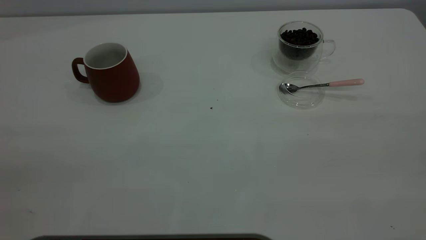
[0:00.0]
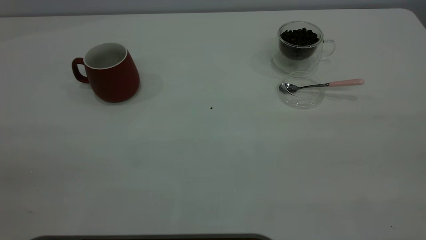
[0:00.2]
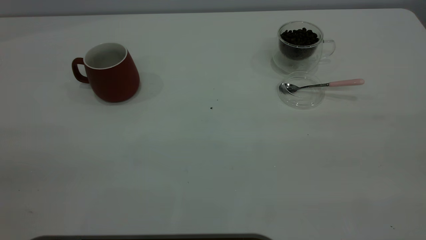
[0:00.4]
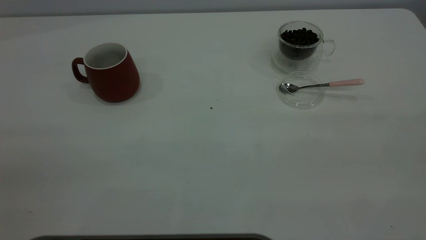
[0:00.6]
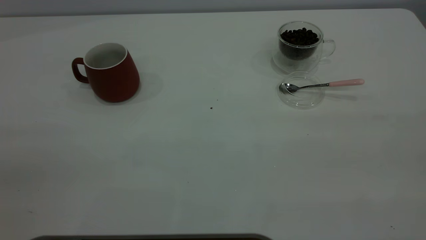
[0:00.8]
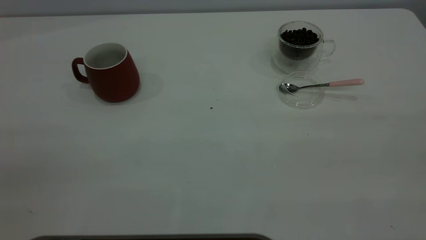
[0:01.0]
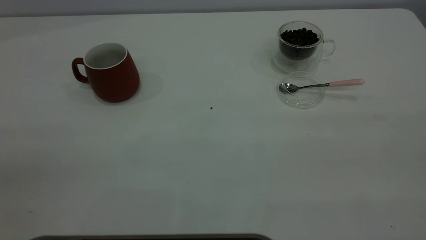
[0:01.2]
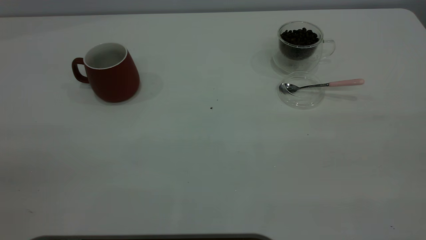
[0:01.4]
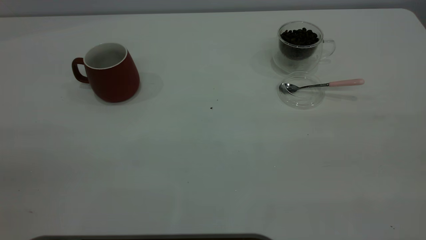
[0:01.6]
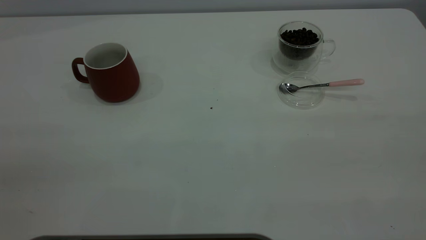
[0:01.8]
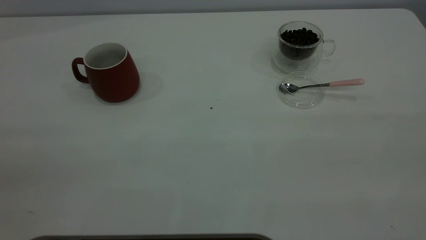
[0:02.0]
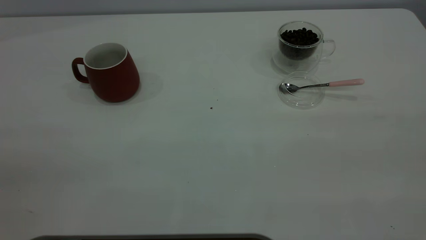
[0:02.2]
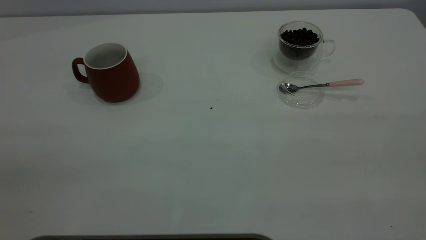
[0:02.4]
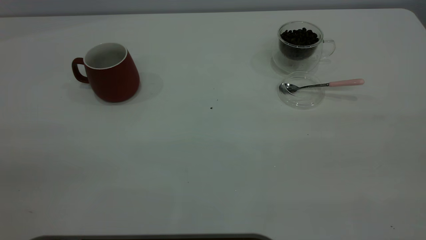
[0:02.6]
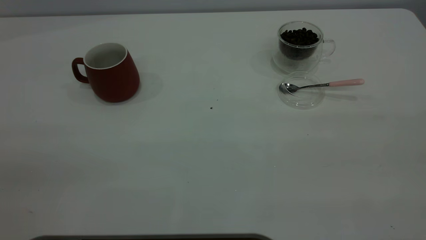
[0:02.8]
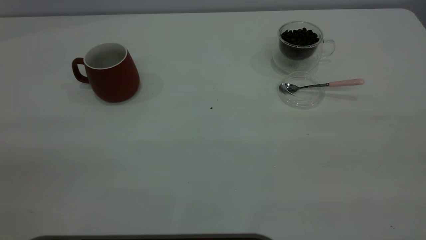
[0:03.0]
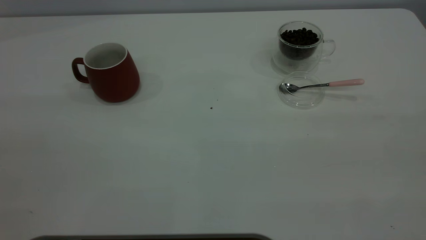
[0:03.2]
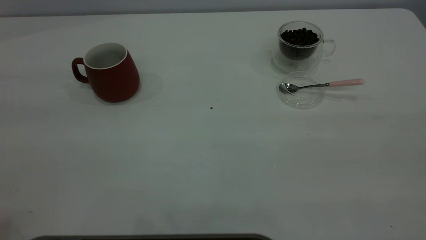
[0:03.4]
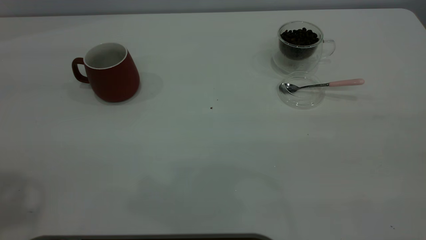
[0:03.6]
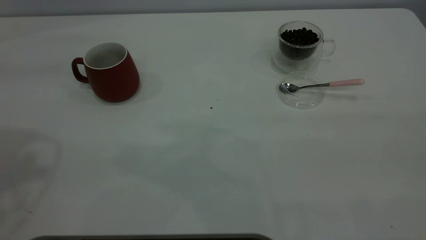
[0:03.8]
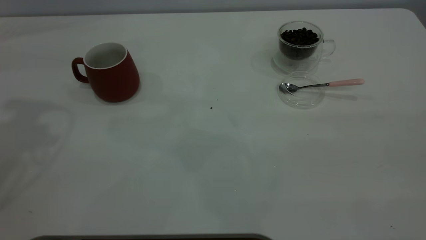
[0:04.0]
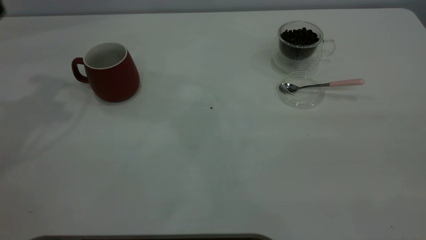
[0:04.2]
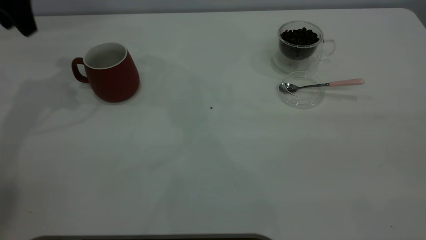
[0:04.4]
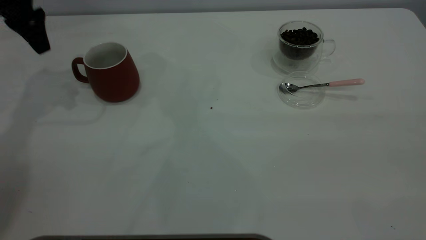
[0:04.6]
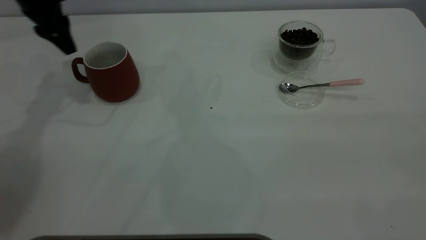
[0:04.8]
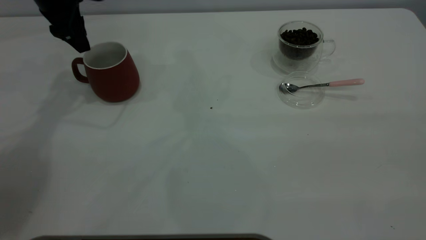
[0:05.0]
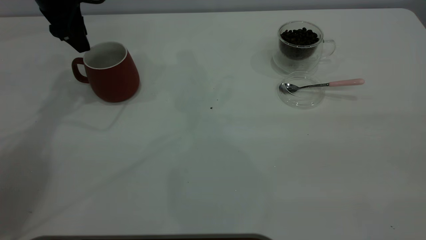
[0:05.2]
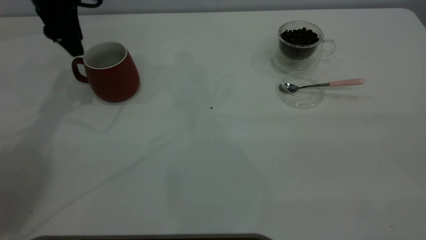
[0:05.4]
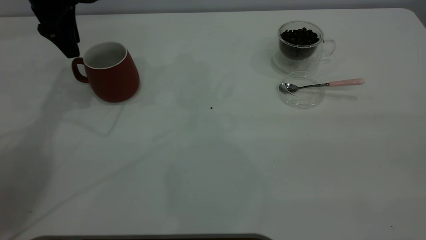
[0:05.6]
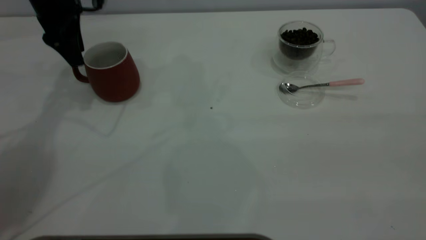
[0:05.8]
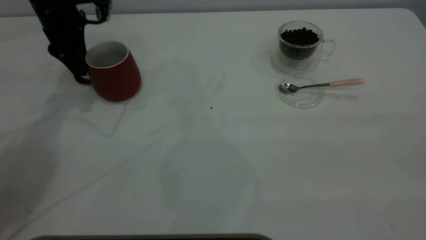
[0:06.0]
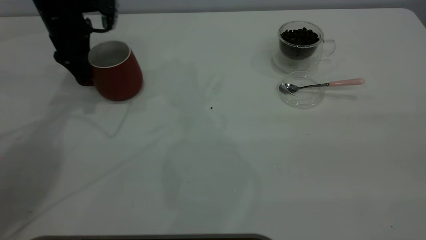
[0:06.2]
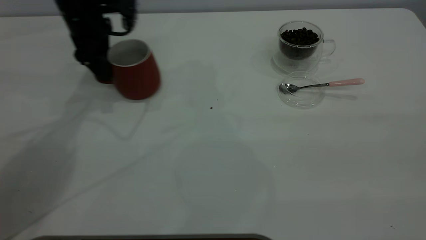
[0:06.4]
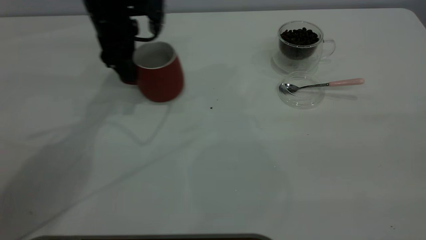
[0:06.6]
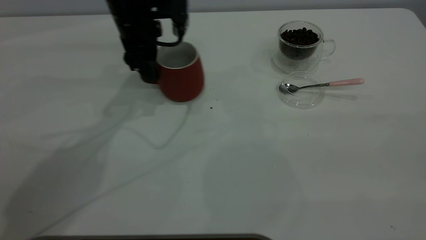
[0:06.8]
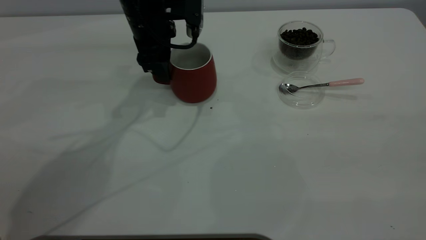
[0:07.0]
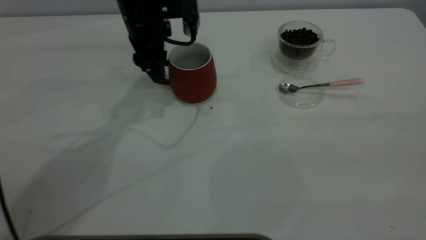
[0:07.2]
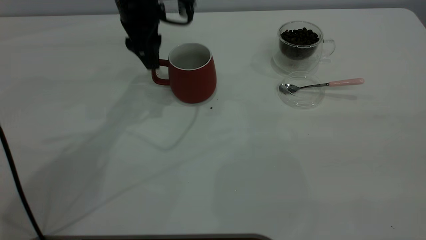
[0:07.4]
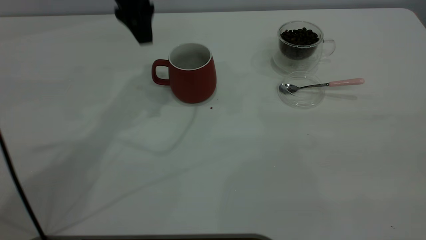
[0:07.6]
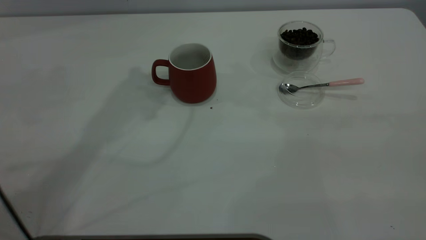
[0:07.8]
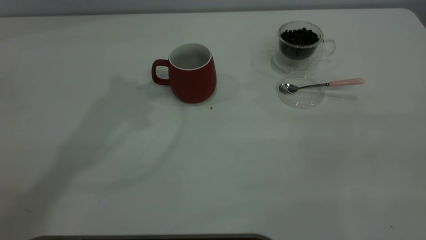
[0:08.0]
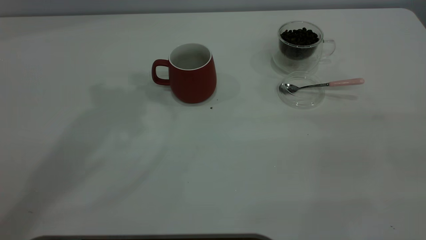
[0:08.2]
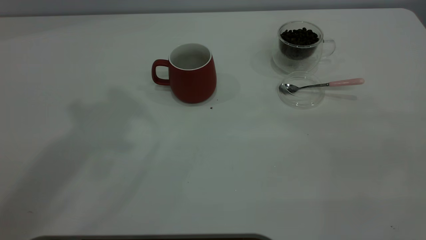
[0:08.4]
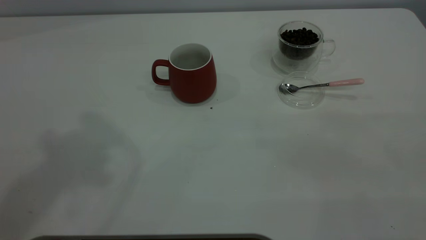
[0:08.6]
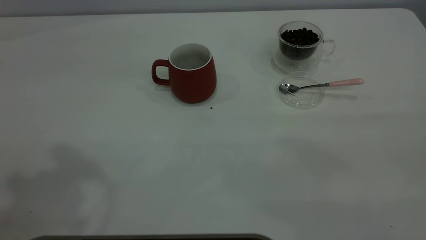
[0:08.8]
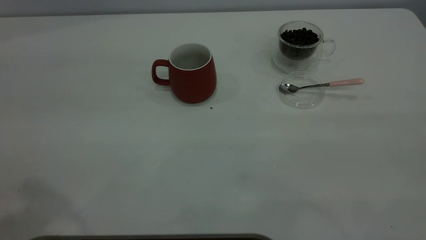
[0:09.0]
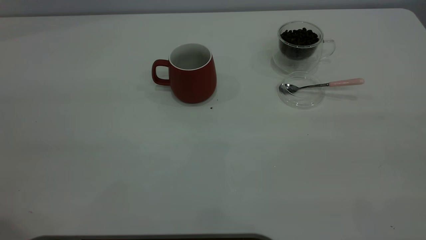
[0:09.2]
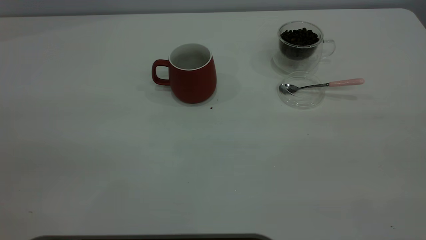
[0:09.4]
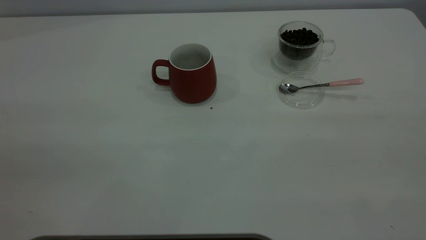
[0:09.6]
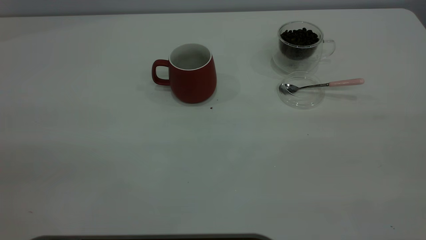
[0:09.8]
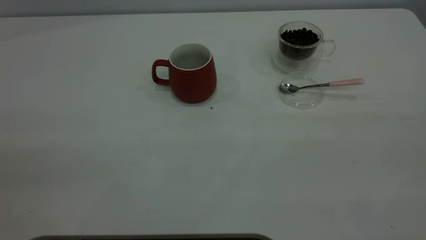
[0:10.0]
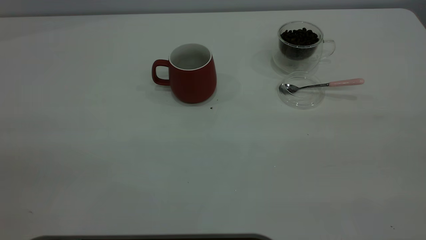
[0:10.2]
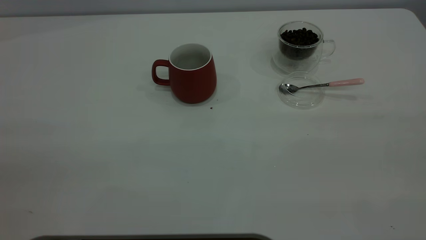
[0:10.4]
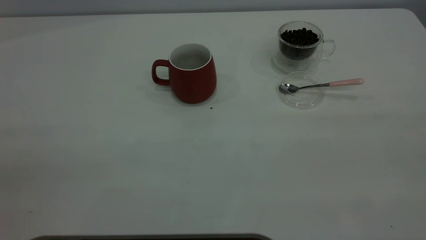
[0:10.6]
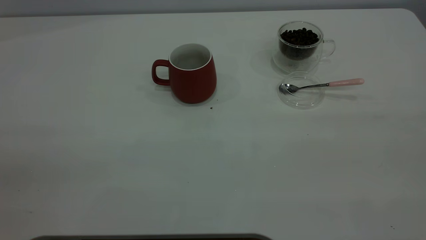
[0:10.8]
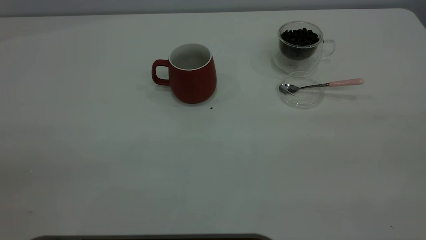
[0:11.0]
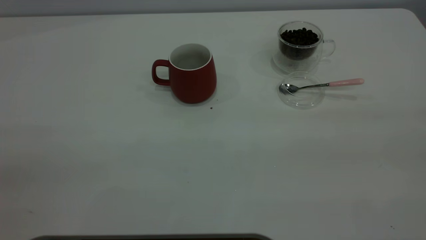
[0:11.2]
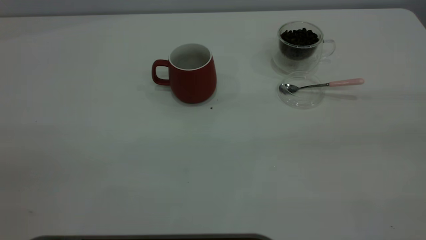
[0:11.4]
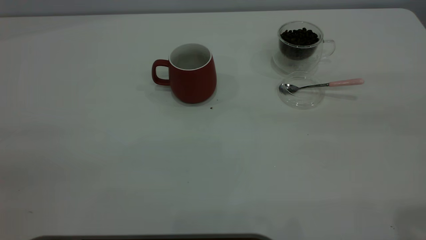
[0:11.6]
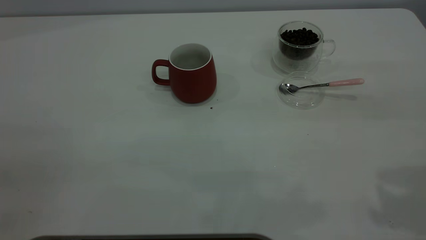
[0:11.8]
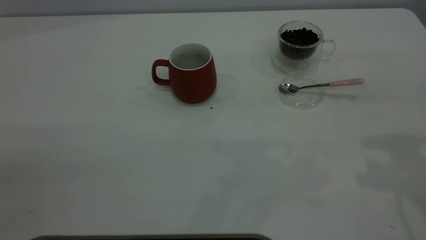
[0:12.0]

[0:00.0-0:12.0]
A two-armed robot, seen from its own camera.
Task of the whole recording: the left gripper place the red cup in the center of the table, the right gripper take the pink spoon from the cup lid and scoop out the coffee beans from the coffee cup and put them into the red cup, the right gripper put the spoon back into the cup lid.
Step, 0:00.0 to 0:07.4: Move the cup to the center of view.
0:00.0 to 0:01.6: Both grippers stay put.
0:03.0 to 0:04.4: The left gripper moves forward, some 40 cm.
0:04.4 to 0:06.0: The left gripper heads downward and to the right, covering about 10 cm.
0:06.0 to 0:07.6: The left gripper moves to the right and upward, roughly 15 cm.
0:07.6 to 0:09.0: The left gripper moves backward, upward and to the left, about 35 cm.

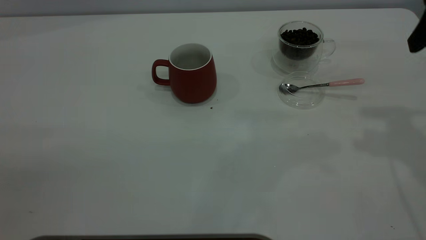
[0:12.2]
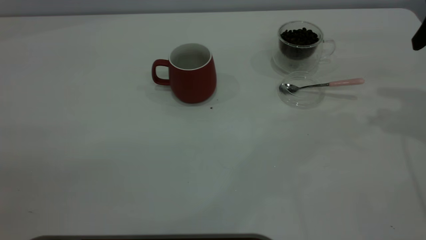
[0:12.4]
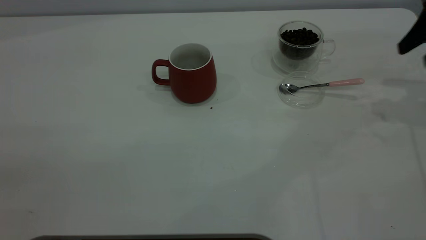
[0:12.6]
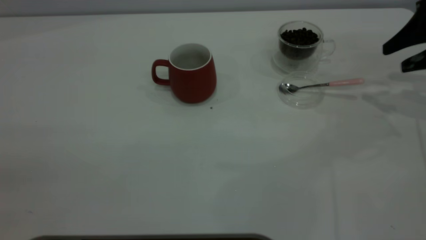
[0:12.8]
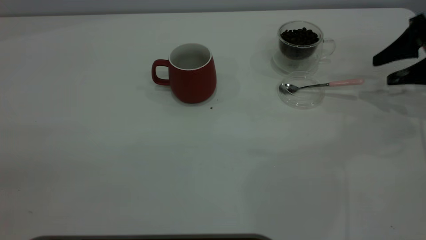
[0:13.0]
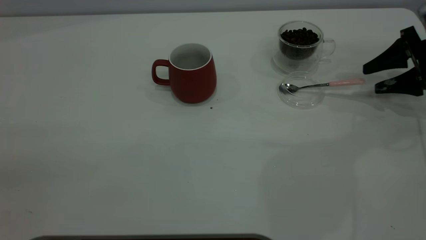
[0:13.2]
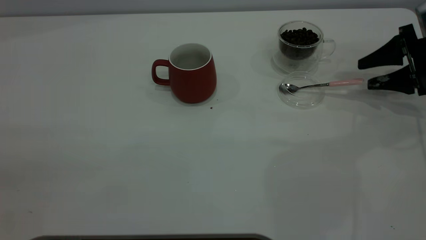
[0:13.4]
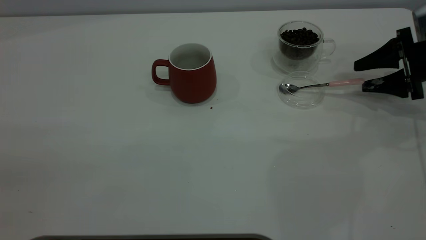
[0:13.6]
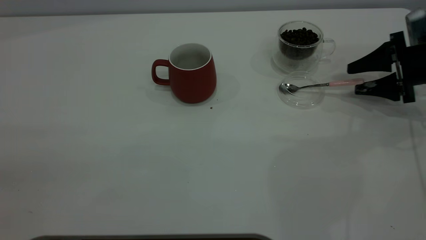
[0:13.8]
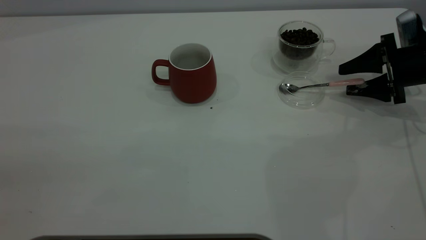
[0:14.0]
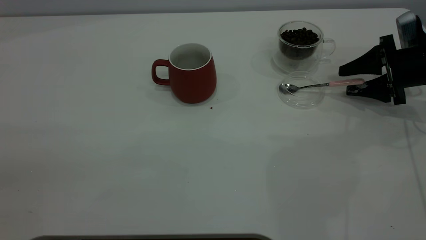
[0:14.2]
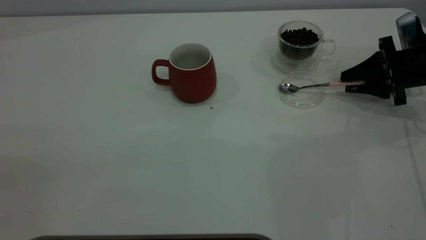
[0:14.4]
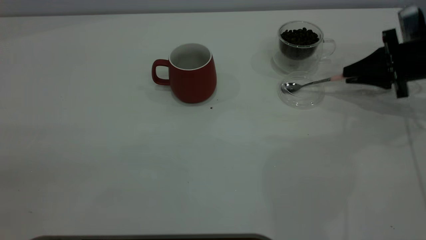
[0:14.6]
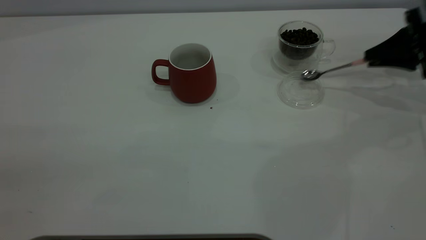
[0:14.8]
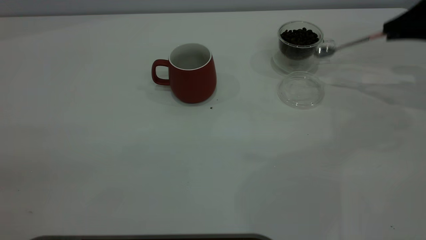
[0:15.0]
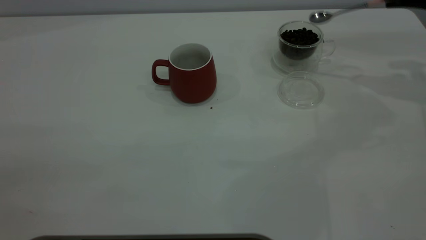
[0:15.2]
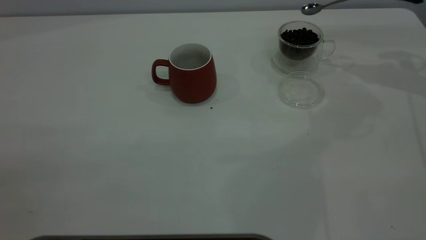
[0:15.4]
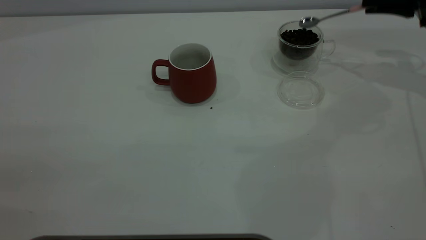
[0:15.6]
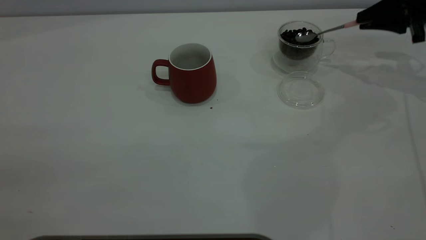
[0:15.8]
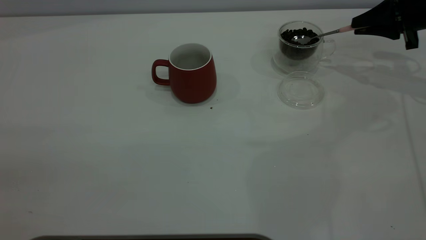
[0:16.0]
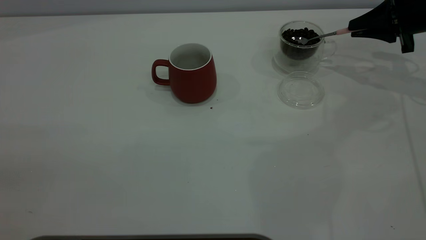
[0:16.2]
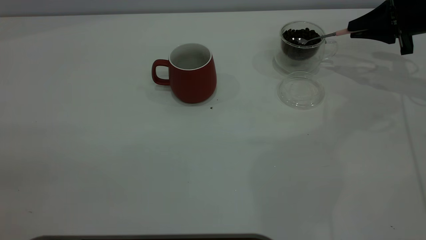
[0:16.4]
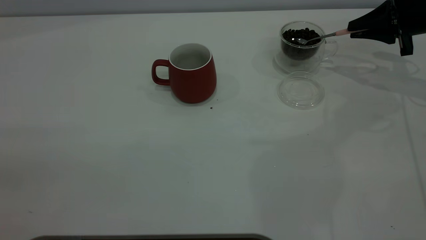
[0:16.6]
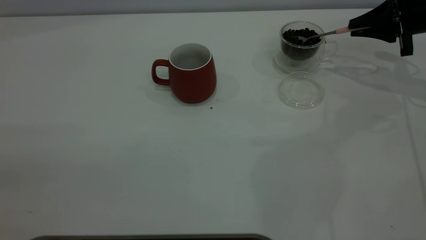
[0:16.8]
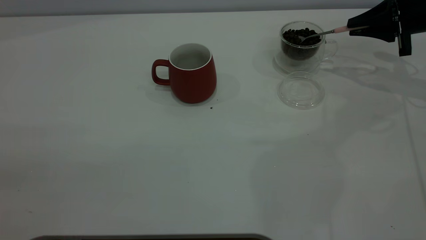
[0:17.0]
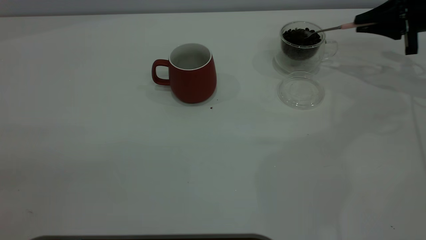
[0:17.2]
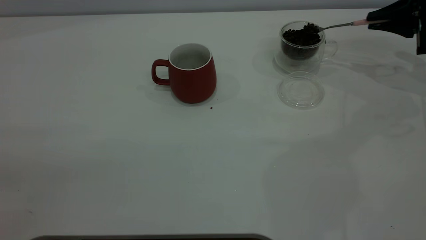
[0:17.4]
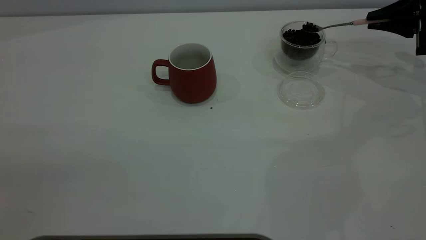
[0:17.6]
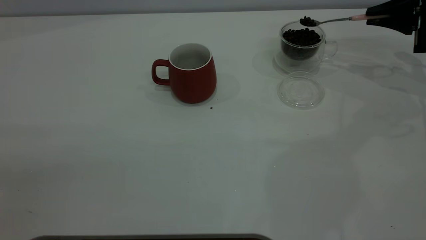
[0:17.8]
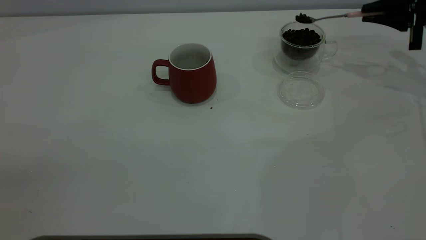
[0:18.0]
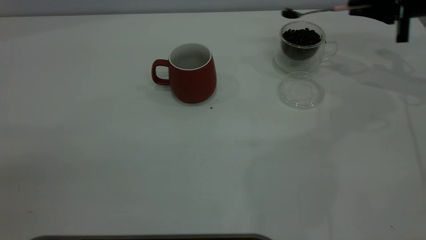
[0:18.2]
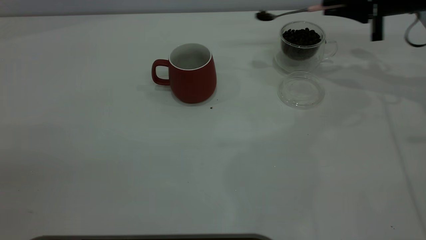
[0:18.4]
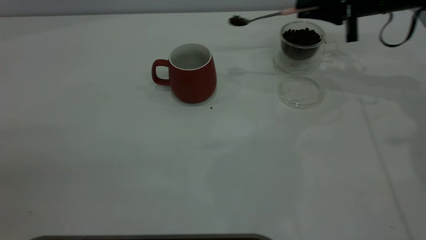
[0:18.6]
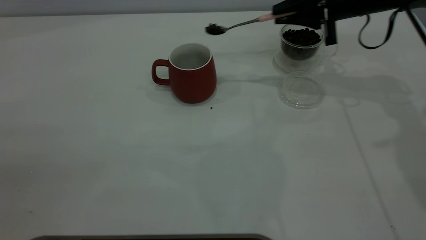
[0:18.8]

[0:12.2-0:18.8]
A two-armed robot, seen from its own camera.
Task of the whole recording: the left gripper place the red cup in the center of the table, the right gripper take the pink spoon from the cup lid and scoop out the coffee beans from the coffee cup and put them into the red cup, the right gripper put the spoon back into the cup lid.
Step, 0:12.2 to 0:14.8: Pick up the spoon.
0:12.2 to 0:13.8: The right gripper moves downward and forward, roughly 20 cm.
0:13.8 to 0:15.4: The right gripper is displaced upward and forward by about 15 cm, and closes.
0:15.4 to 0:17.2: The right gripper is displaced downward by roughly 5 cm.
0:17.2 to 0:18.8: The right gripper travels to the left by roughly 15 cm.
